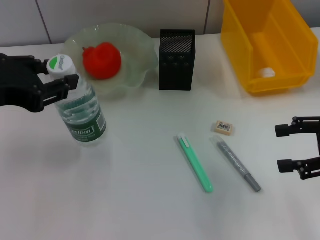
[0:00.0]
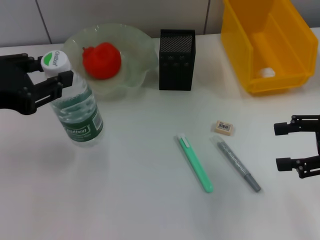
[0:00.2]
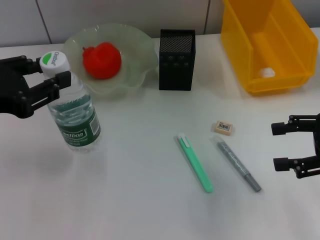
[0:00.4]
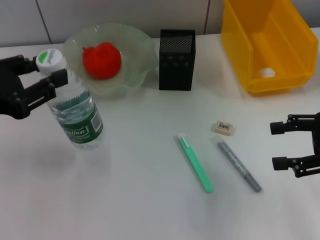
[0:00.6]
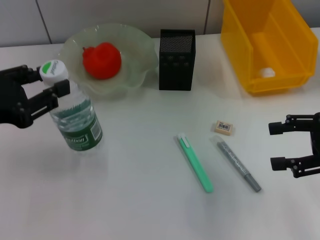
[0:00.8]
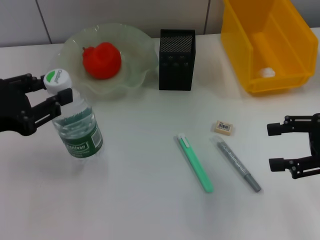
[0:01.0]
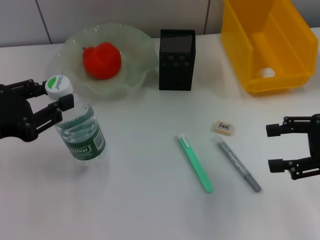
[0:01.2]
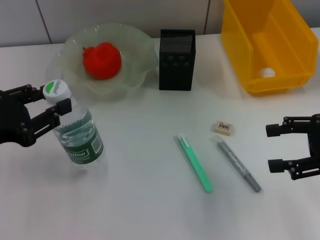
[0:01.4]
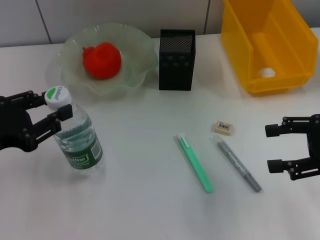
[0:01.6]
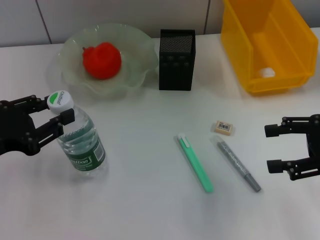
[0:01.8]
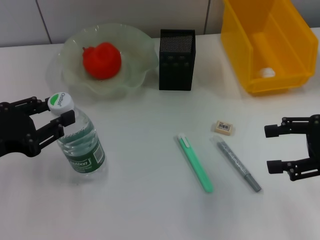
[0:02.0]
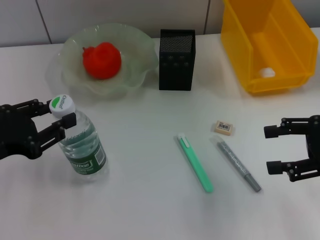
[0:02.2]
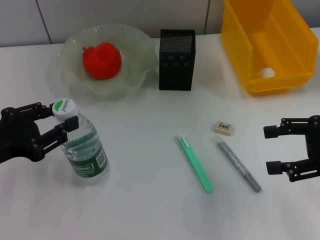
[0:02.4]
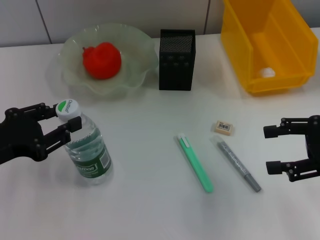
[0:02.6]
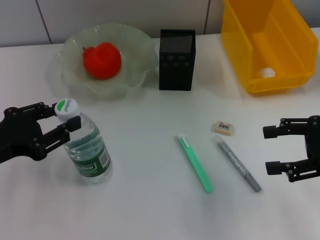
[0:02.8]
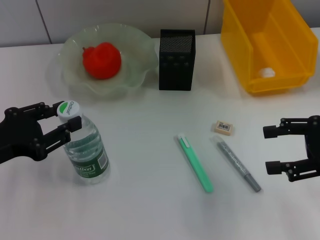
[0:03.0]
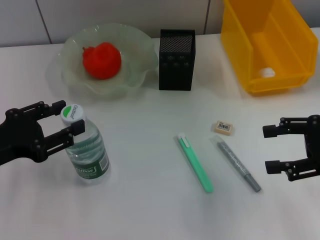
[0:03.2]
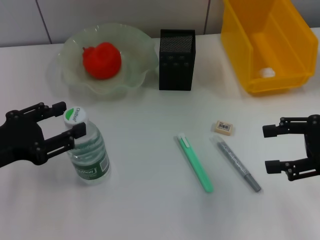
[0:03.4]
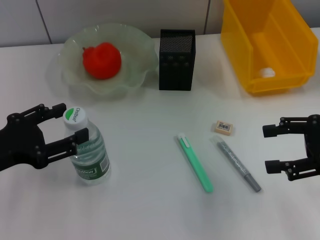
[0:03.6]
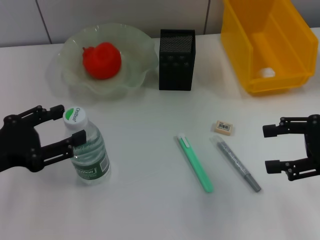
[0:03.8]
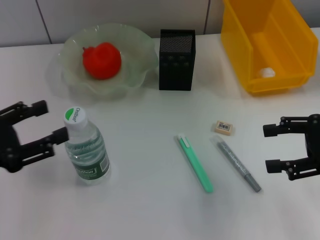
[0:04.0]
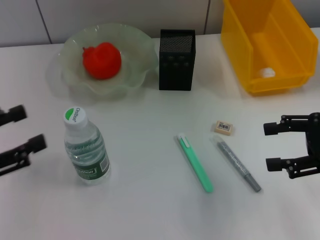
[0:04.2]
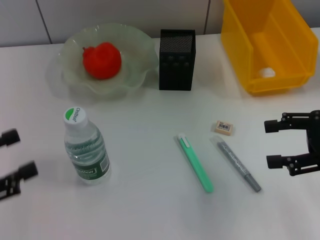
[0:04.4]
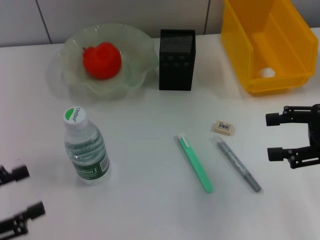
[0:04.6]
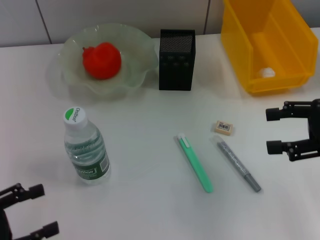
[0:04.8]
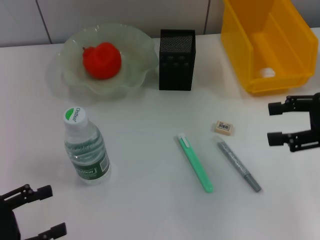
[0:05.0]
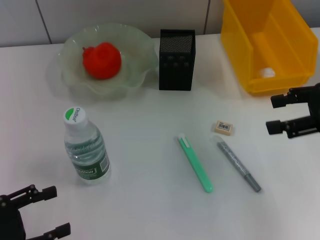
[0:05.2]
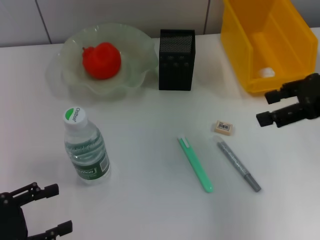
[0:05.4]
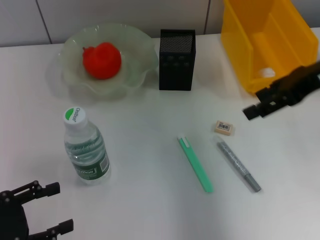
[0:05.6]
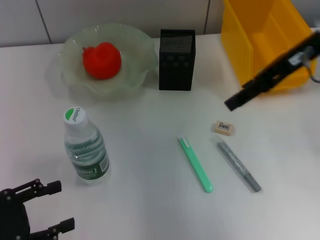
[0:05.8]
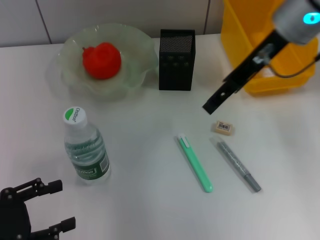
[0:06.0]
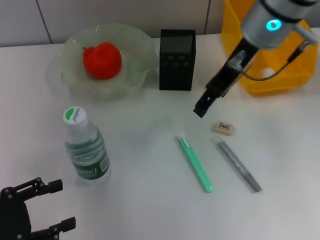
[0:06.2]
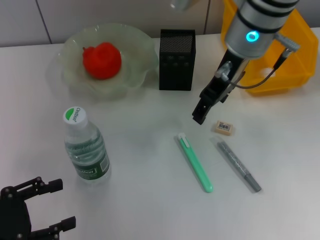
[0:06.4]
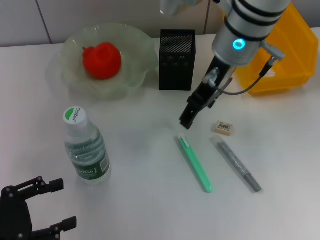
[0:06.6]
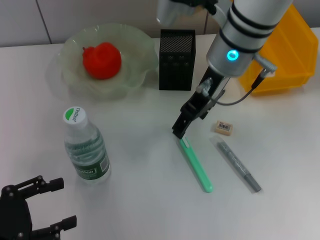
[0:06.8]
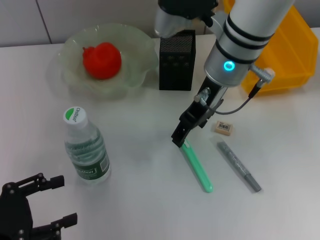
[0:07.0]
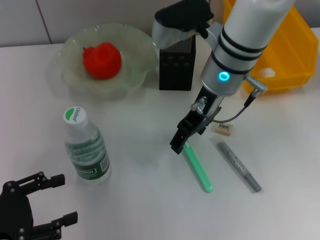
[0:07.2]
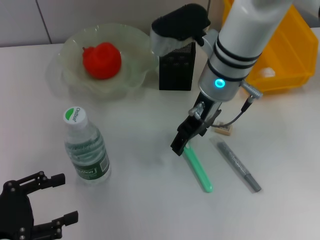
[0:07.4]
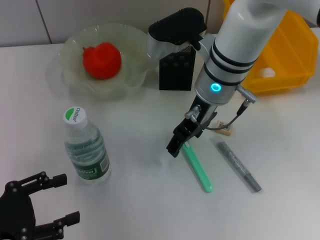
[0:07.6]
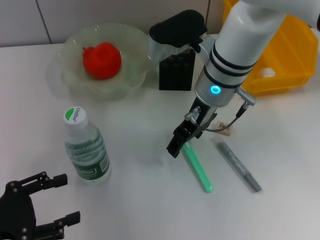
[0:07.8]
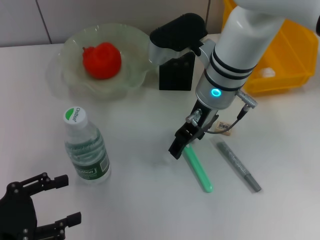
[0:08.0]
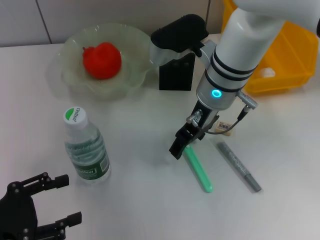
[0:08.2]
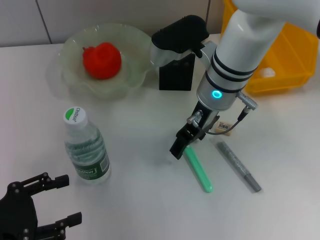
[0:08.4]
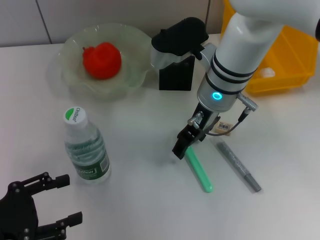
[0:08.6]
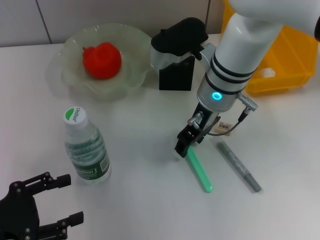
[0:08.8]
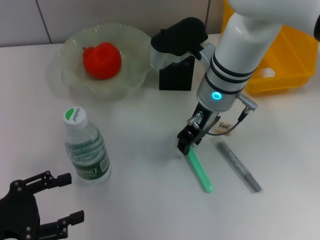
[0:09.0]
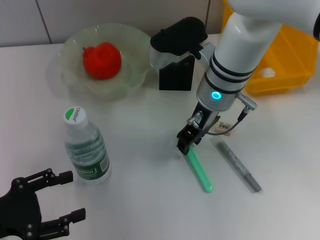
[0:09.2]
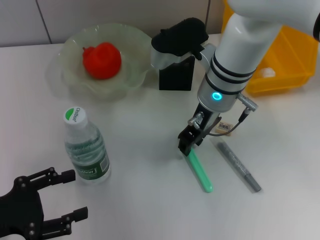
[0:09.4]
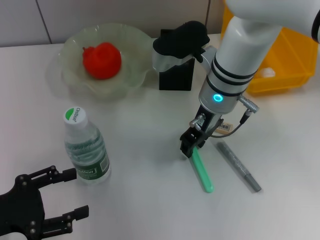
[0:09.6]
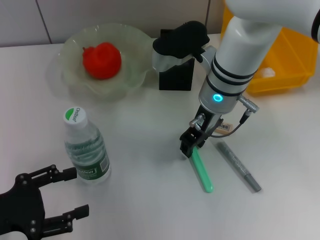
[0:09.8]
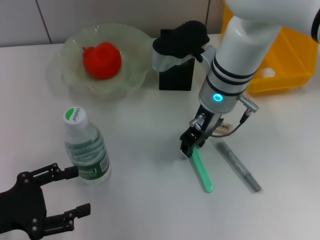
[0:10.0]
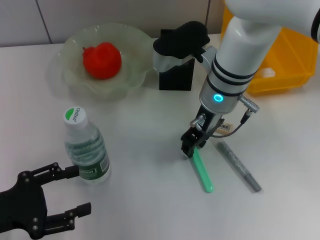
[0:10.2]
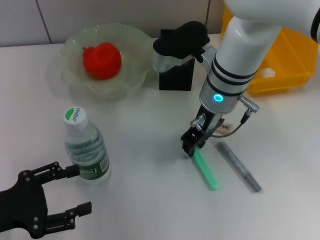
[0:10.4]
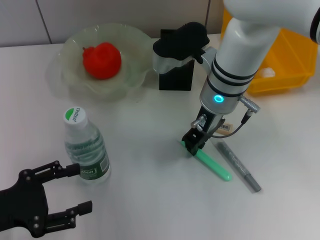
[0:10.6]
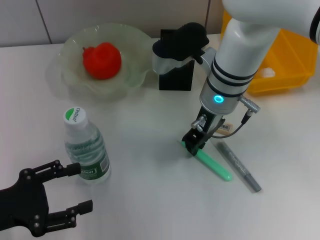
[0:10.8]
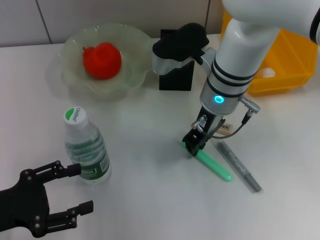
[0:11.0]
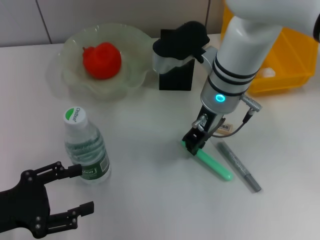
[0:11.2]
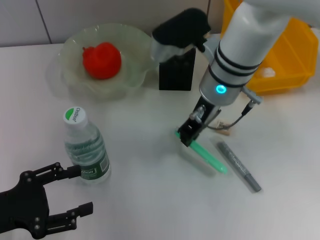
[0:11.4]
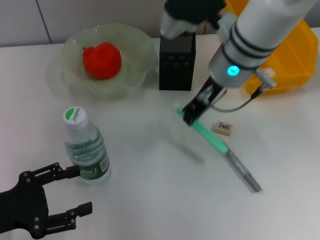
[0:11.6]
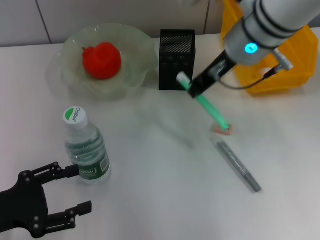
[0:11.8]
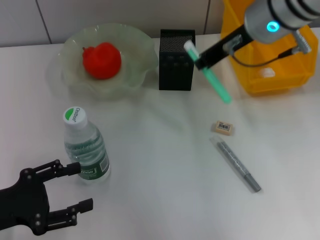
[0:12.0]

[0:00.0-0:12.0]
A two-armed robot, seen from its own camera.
Step, 0:00.0 to 0:03.6: Place the water bottle on the table with the left hand.
Step, 0:03.8 to 0:11.0: Grab the blue utility knife with the right hand.
0:00.0 to 0:01.6: The left gripper moves downward, some 10 cm.
0:01.6 to 0:03.0: The grippers move only a little.
0:03.0 to 0:04.4: The left gripper heads to the left and backward, covering roughly 10 cm, and opens its fingers.
0:04.4 to 0:06.0: The right gripper heads to the left, forward and upward, covering approximately 25 cm, while the left gripper goes roughly 5 cm downward.
0:06.0 to 0:07.6: The right gripper heads downward and to the left, covering some 15 cm.
0:07.6 to 0:10.4: There are only small adjustments of the grippers.
0:10.4 to 0:12.0: The right gripper travels upward and to the right by approximately 10 cm.

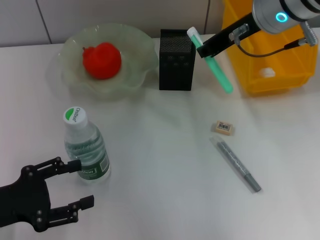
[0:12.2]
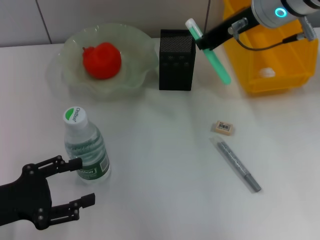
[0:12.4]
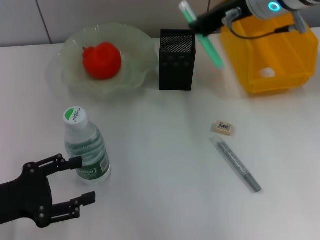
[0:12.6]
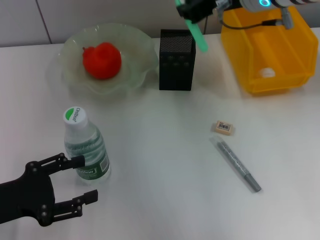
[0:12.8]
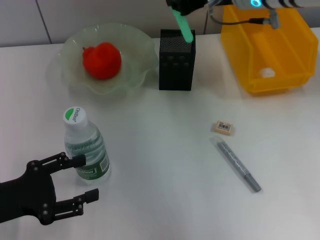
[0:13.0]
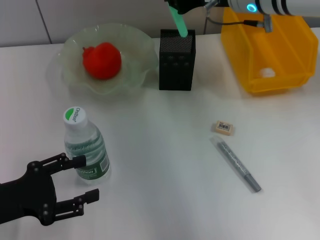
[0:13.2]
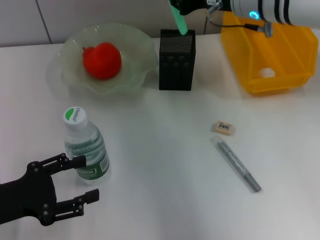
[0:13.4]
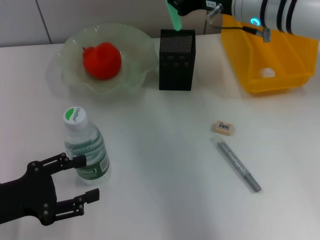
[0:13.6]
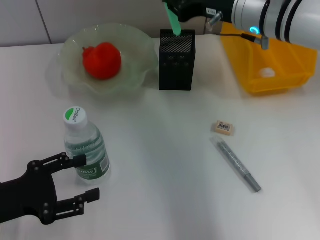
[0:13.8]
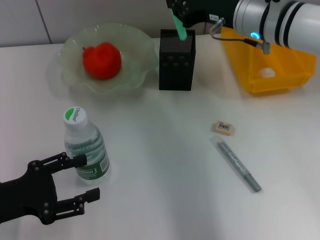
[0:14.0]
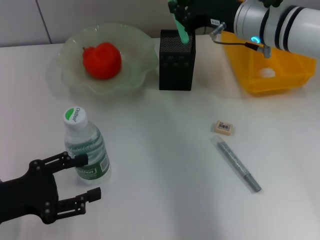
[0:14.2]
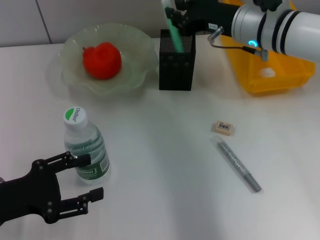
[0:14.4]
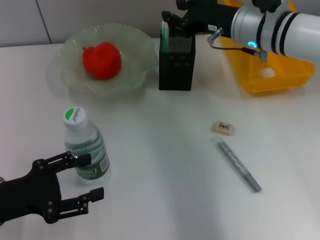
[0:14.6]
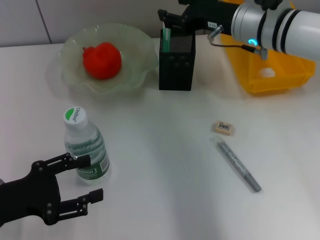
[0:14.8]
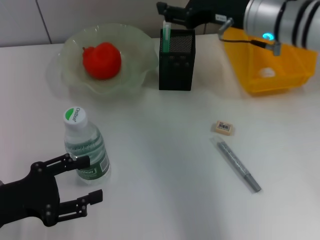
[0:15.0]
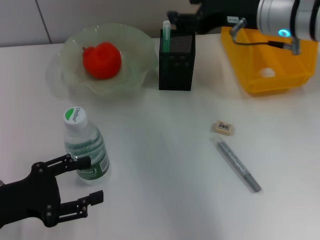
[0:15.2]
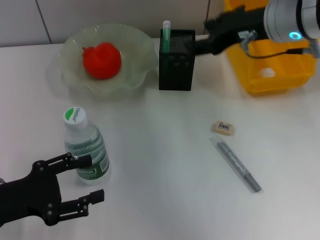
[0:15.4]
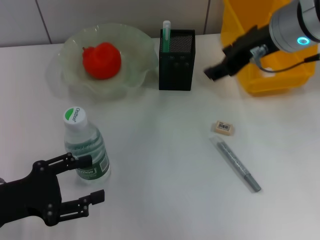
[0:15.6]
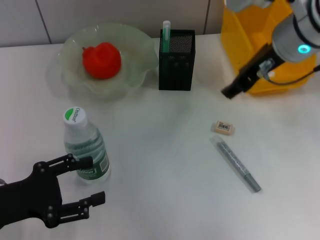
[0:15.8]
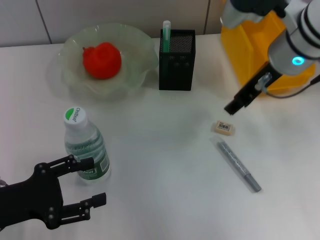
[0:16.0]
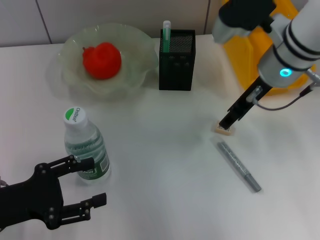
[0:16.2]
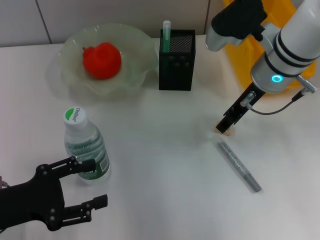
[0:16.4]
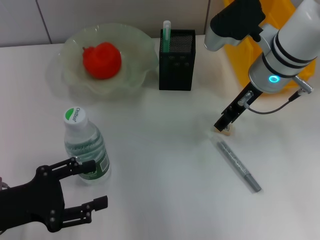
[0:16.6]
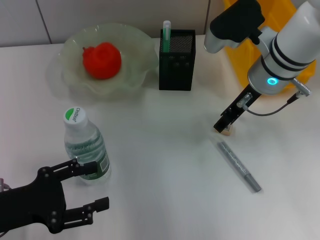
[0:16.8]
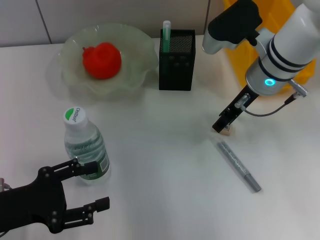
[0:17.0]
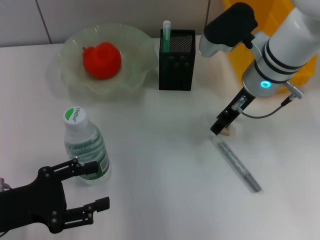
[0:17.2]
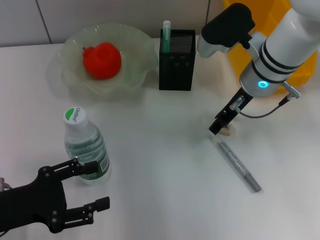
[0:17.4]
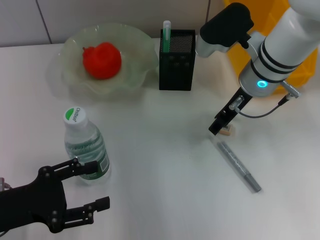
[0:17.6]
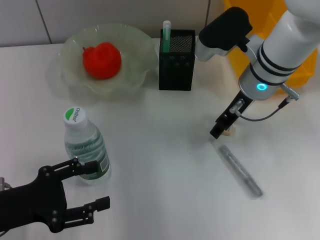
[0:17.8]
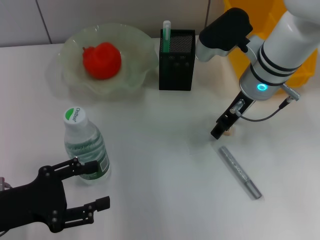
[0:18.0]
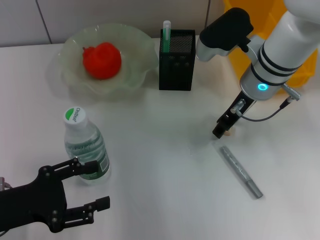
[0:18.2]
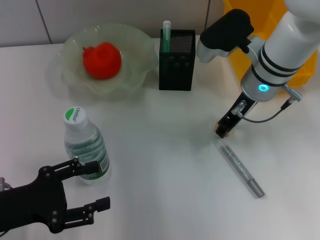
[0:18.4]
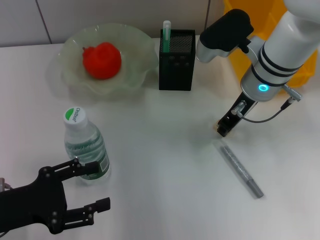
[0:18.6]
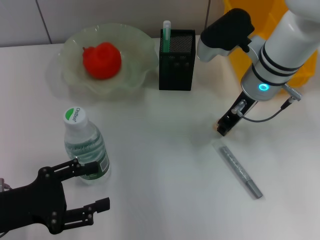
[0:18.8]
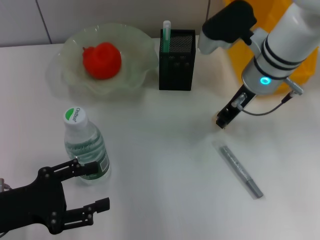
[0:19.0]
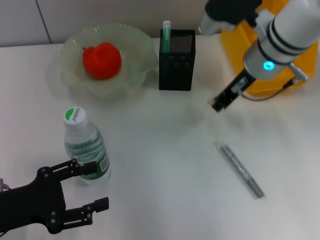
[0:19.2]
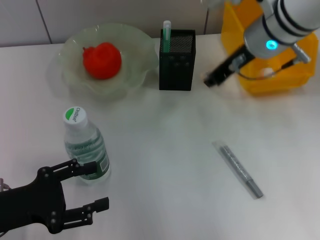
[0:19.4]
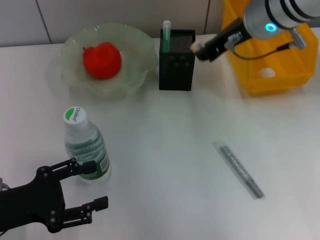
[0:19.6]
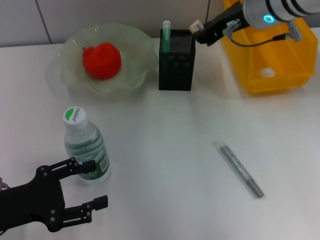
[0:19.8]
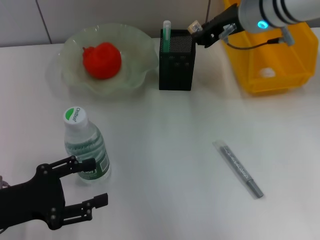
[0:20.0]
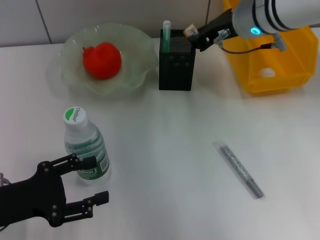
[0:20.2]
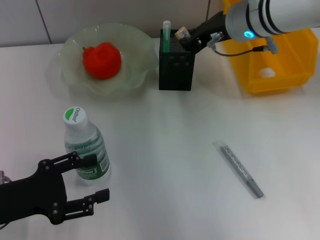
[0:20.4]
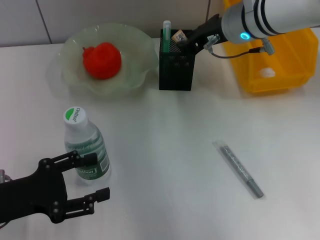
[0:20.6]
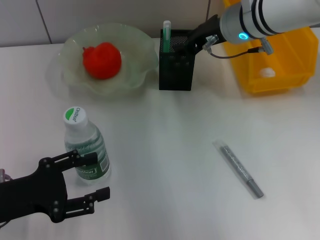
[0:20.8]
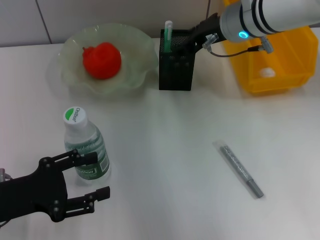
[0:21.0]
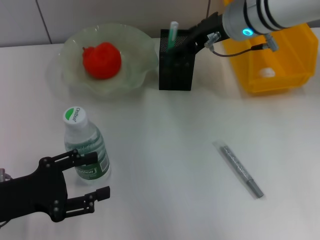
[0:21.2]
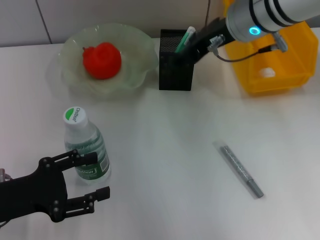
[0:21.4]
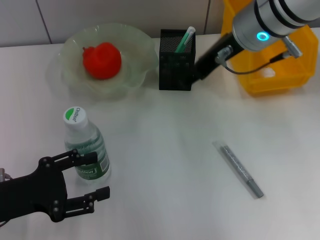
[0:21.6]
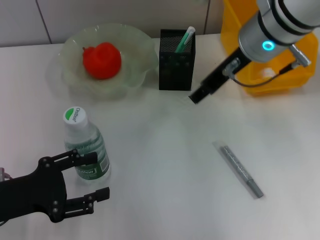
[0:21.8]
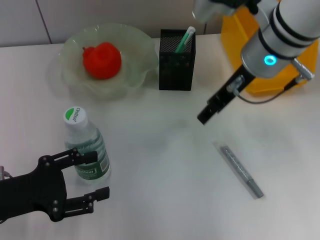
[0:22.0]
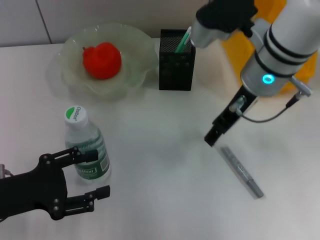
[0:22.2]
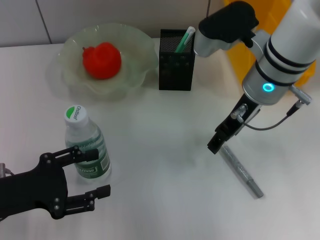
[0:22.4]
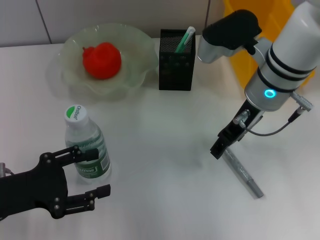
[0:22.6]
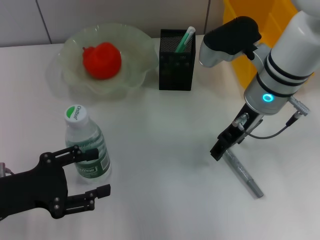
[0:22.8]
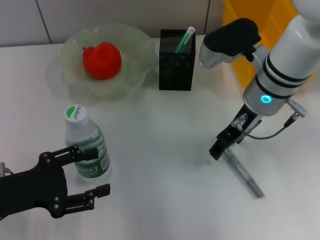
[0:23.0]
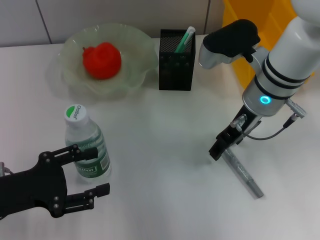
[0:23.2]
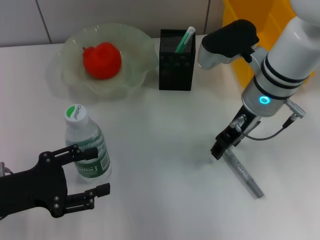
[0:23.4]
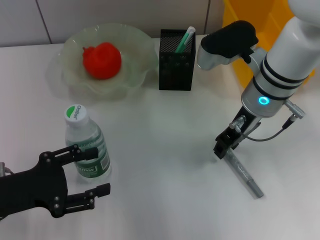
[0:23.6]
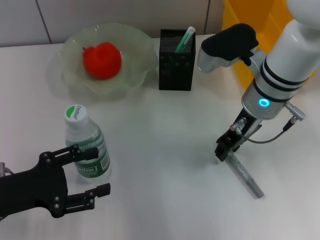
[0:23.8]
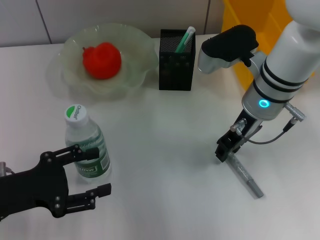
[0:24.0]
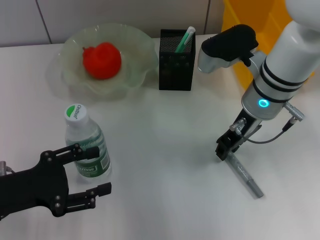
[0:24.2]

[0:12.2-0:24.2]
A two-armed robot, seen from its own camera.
Step, 0:12.2 to 0:15.0: Place the blue utility knife into the pen holder with the right hand.
Step, 0:15.2 to 0:18.6: Grab the eraser with the right hand.
Step, 0:18.8 to 0:21.4: Put the eraser into the pen holder with the right hand.
0:12.2 to 0:13.8: The right gripper heads downward, covering about 5 cm.
0:13.8 to 0:15.2: The right gripper opens.
0:15.2 to 0:16.6: The right gripper is displaced downward by some 5 cm.
0:16.6 to 0:18.2: The grippers make only small movements.
0:18.2 to 0:19.8: The right gripper is displaced upward by roughly 10 cm, and closes its fingers.
0:19.8 to 0:21.2: The right gripper opens up.
0:21.2 to 0:22.6: The right gripper goes some 5 cm backward.
0:22.6 to 0:24.2: The right gripper closes up.
